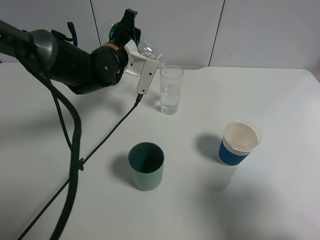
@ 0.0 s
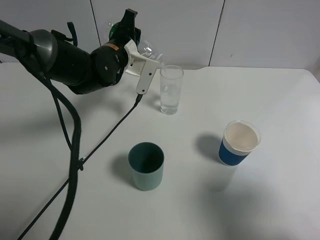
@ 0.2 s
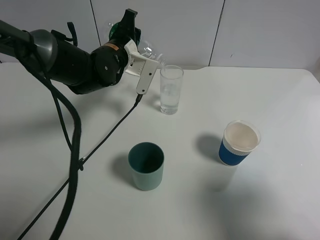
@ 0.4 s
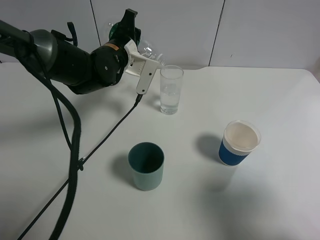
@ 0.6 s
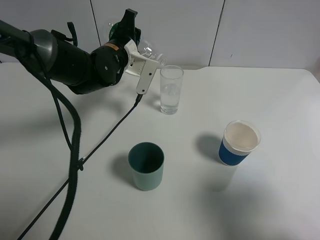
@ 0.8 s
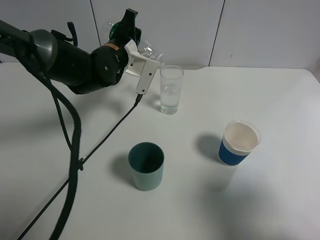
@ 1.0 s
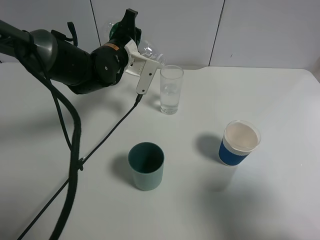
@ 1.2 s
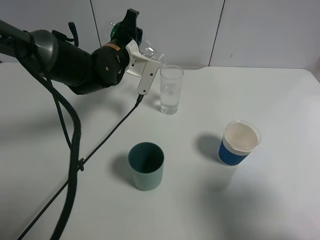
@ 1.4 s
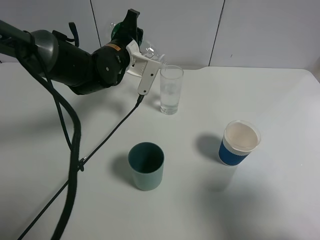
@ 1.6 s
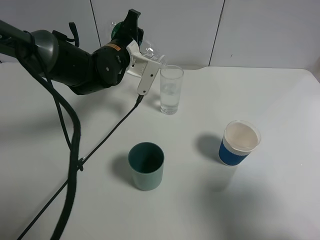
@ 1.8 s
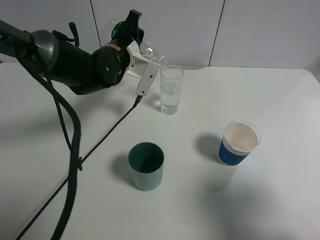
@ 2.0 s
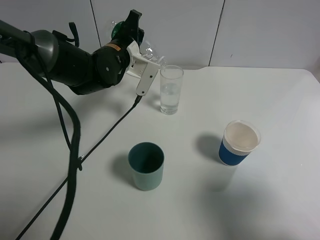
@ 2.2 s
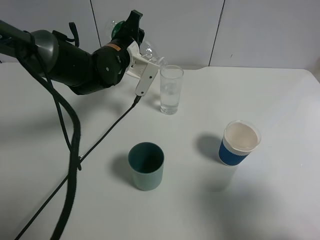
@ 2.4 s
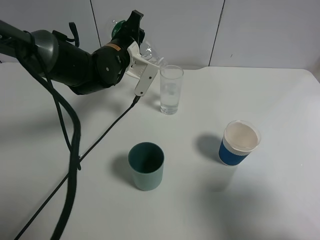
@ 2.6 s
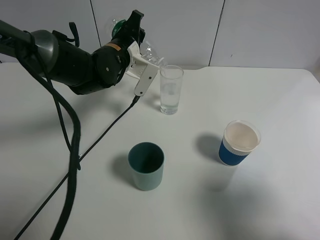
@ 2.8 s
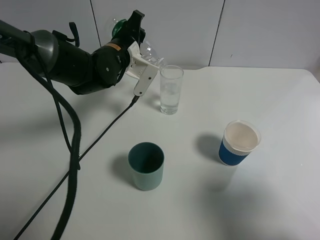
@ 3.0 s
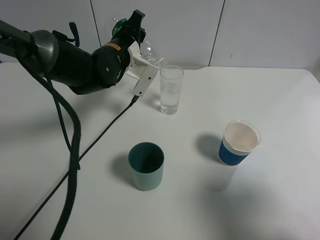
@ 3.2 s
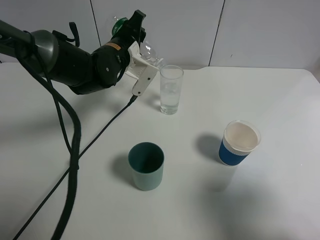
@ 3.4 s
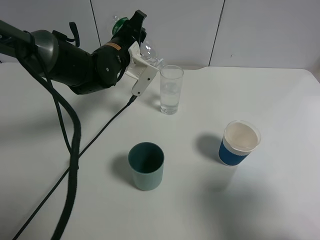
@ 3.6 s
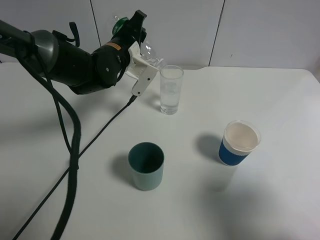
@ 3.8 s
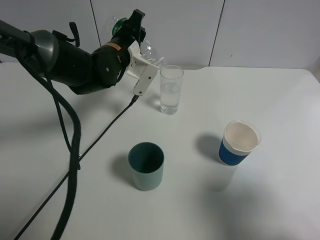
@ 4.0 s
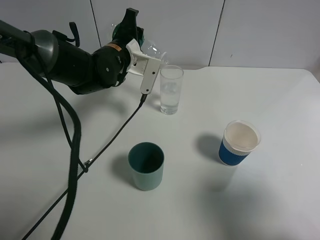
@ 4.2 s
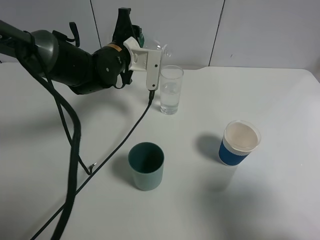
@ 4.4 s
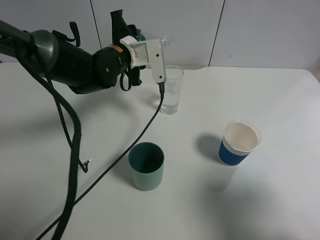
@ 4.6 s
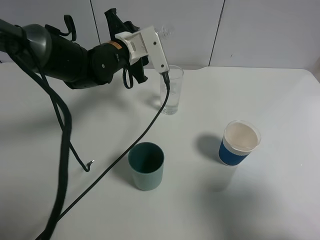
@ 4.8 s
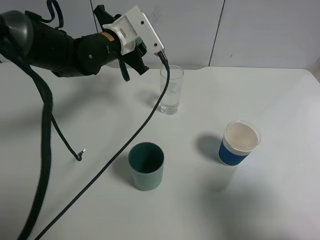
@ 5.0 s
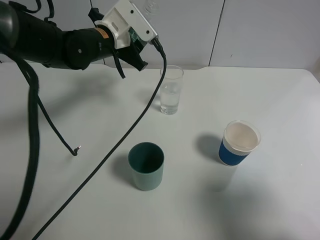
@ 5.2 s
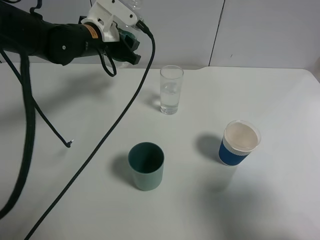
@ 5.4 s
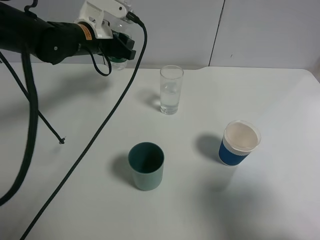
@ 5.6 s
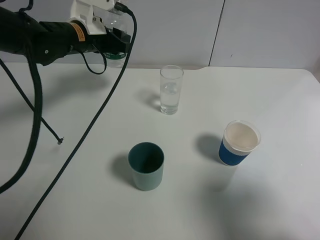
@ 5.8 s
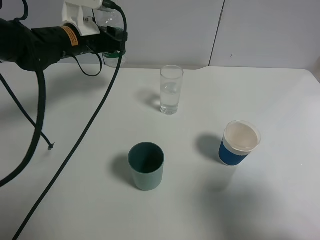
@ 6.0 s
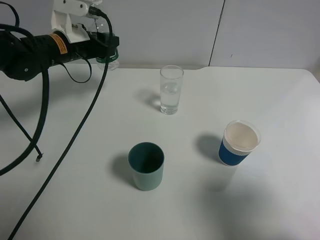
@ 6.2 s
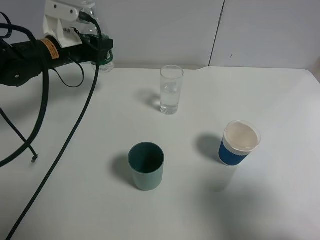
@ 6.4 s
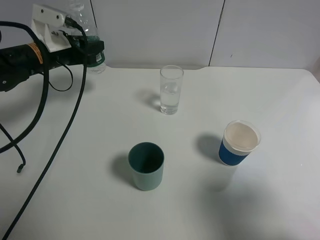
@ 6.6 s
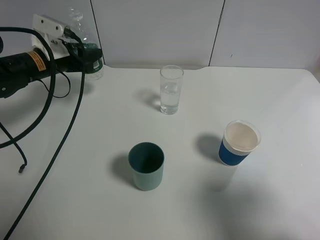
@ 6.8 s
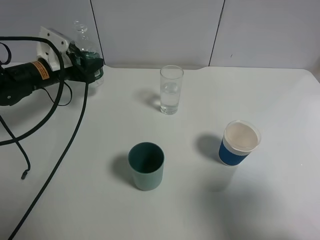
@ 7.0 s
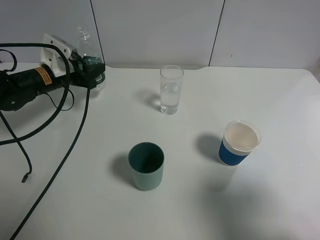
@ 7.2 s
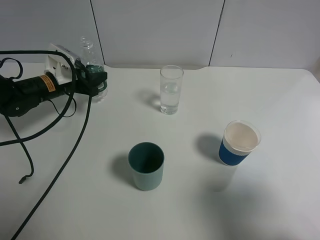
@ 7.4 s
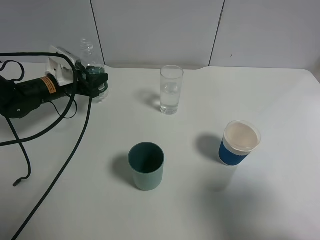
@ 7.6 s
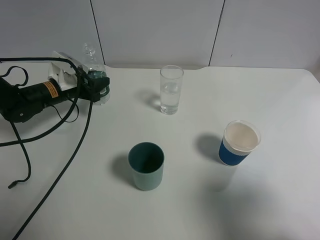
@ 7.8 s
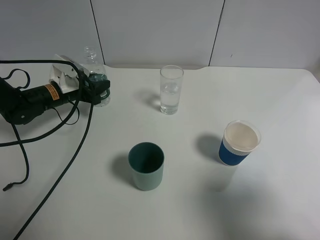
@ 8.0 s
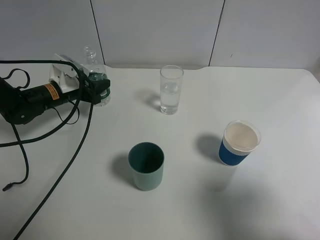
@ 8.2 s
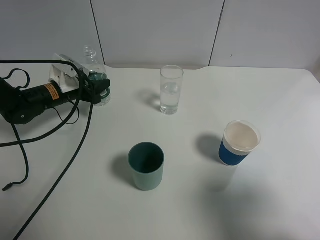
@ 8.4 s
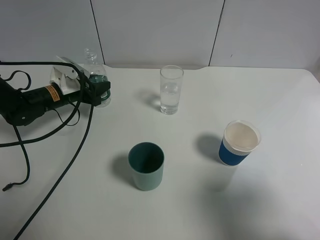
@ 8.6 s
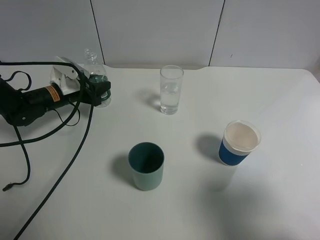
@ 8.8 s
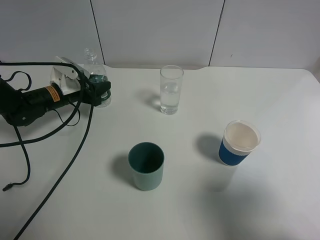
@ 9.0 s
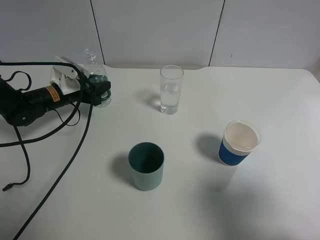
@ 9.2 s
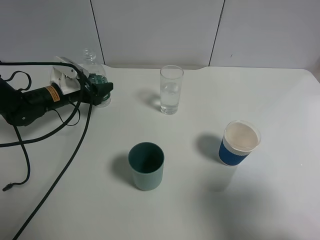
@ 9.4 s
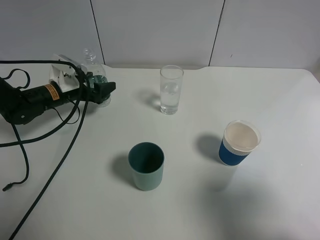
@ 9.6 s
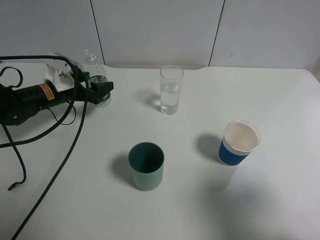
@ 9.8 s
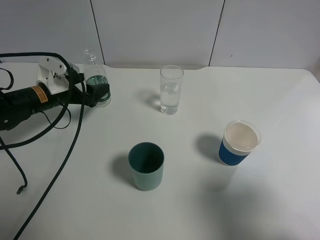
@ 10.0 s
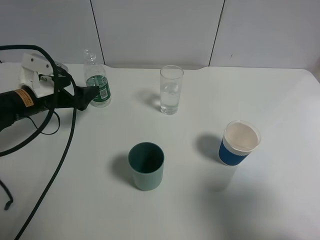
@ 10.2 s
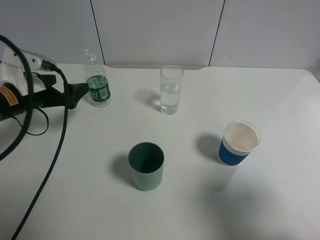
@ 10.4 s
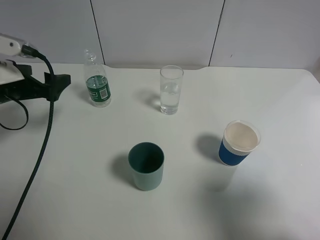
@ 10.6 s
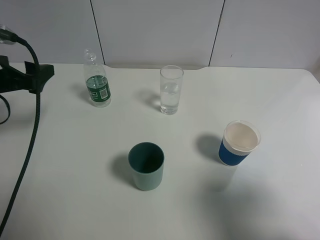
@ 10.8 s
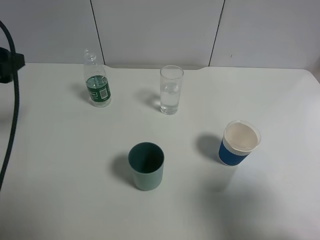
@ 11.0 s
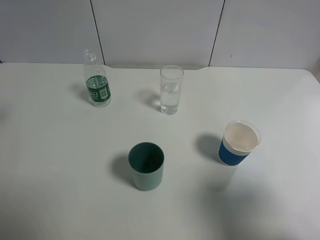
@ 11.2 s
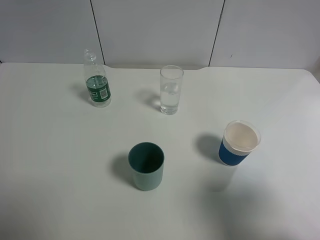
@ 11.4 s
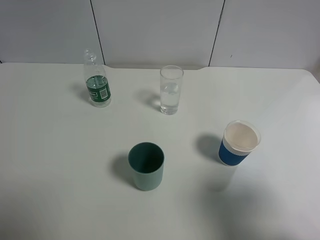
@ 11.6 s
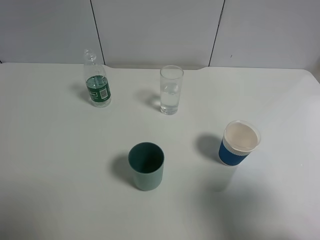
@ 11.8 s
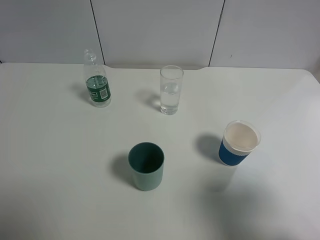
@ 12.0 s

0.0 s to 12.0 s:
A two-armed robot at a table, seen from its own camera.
Task of the whole recording: use a gripper to hold the bottle of the drink and pour it into a random cup.
Step, 0.0 to 4.2 s: Pour the mineral water into the glass with the left gripper.
Step, 4.4 to 9.6 s: Place the mineral water bottle on the table with the left gripper.
0.0 to 1.6 s: Neither gripper changes place.
1.6 to 3.0 s: The grippers move only a little.
4.4 to 6.0 s: The left gripper moves to the left, approximately 10 cm.
6.0 to 7.6 s: The left gripper is displaced downward and to the left by approximately 15 cm.
7.6 to 9.0 s: The grippers move only a little.
9.0 to 10.4 s: The left gripper shifts about 15 cm backward and upward, and opens up.
10.4 to 12.0 s: The left gripper moves backward and upward, some 25 cm.

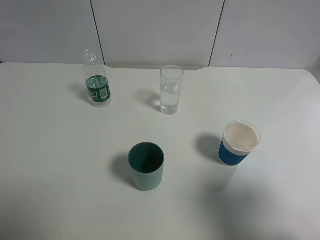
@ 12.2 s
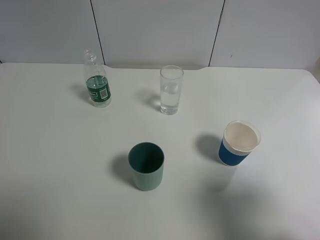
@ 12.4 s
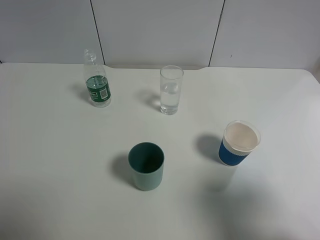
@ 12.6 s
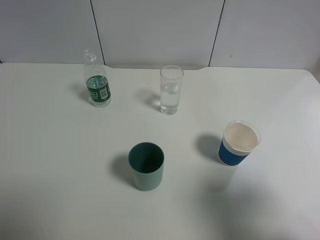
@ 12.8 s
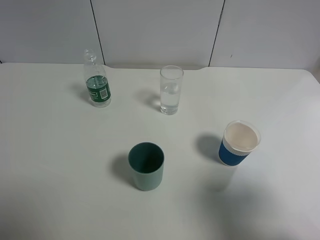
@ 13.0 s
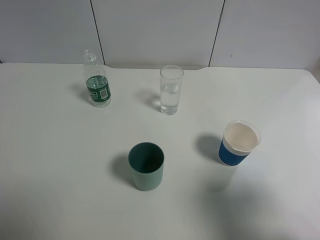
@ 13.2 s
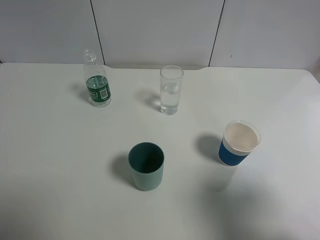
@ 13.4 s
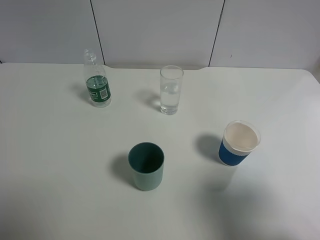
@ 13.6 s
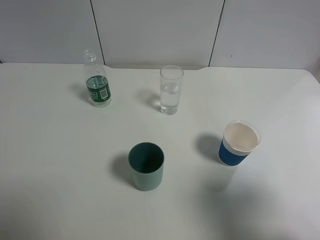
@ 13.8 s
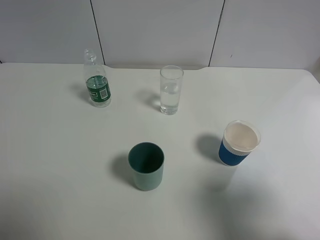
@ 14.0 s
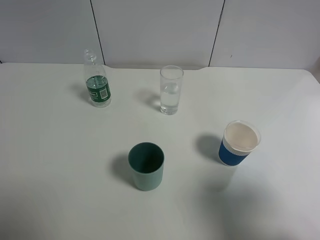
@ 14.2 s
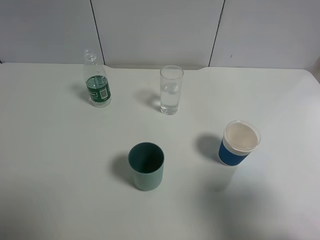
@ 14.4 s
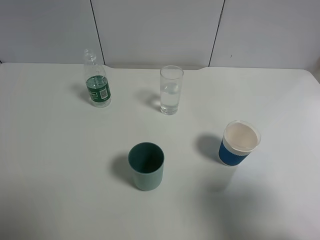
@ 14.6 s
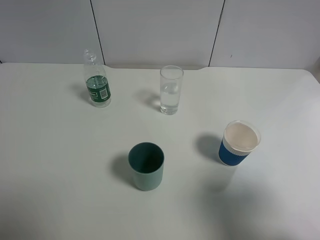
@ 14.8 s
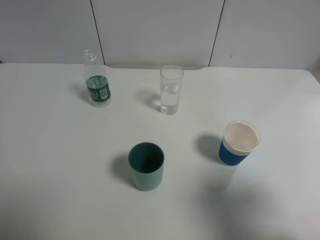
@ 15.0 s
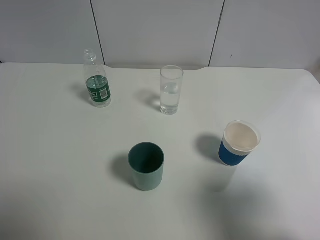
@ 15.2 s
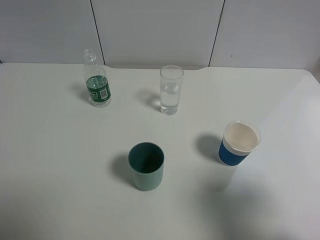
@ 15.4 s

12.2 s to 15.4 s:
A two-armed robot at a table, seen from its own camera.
Task of the whole recording: use a gripper to hold the bottle of the drink and pour it into a random cup.
13.8 to 15.4 s: Both grippers stay about where they are.
